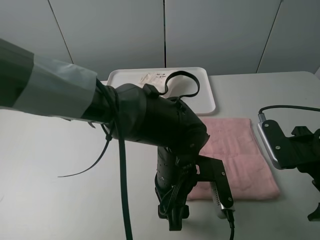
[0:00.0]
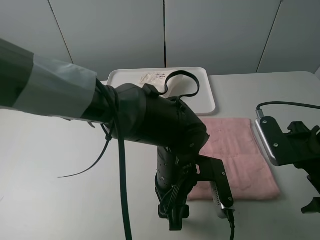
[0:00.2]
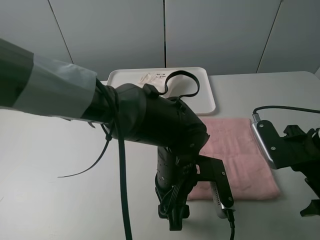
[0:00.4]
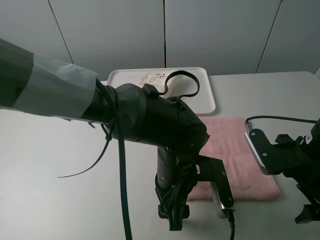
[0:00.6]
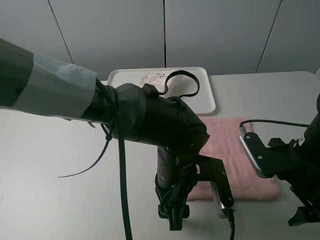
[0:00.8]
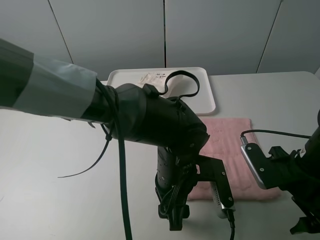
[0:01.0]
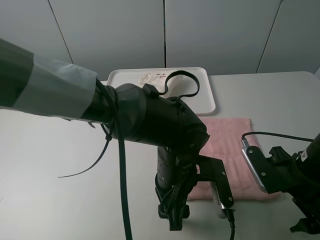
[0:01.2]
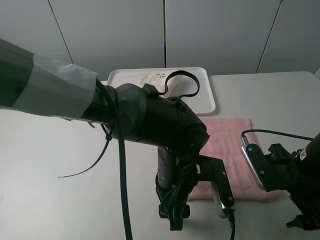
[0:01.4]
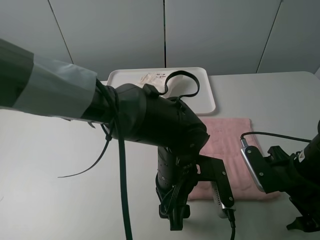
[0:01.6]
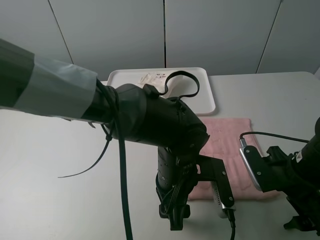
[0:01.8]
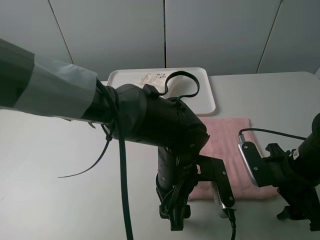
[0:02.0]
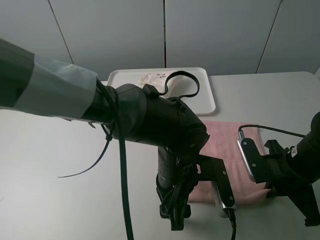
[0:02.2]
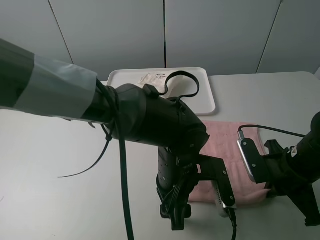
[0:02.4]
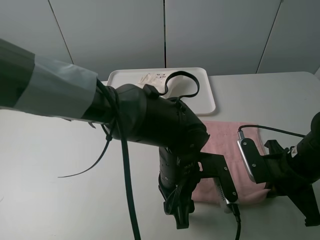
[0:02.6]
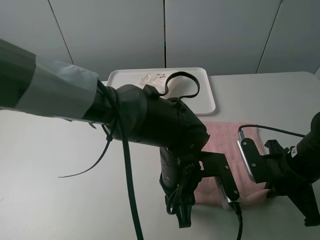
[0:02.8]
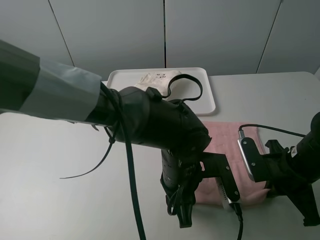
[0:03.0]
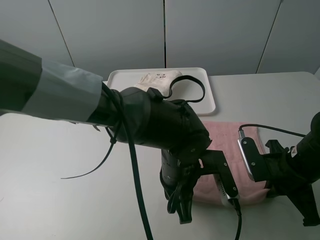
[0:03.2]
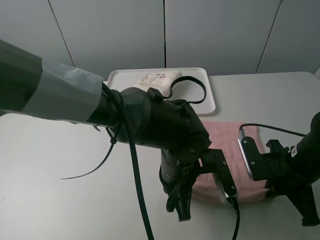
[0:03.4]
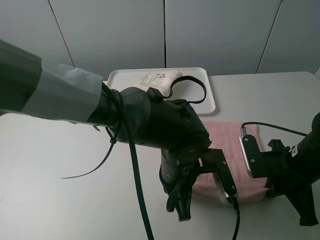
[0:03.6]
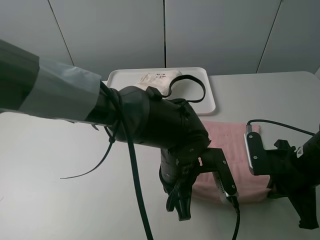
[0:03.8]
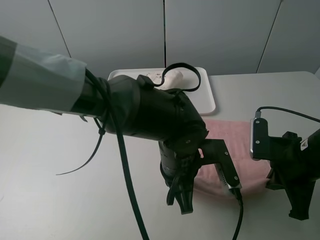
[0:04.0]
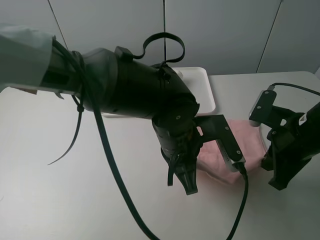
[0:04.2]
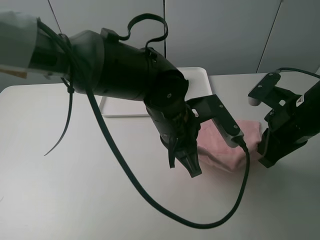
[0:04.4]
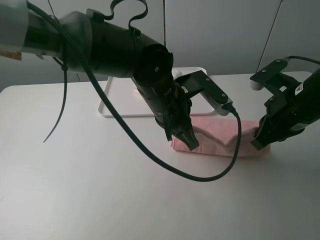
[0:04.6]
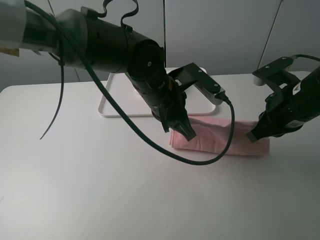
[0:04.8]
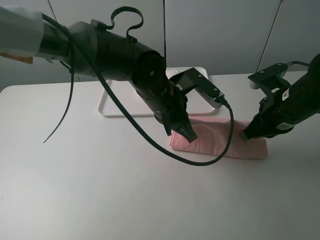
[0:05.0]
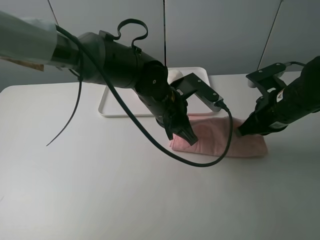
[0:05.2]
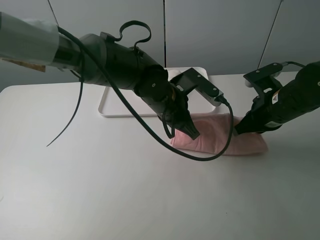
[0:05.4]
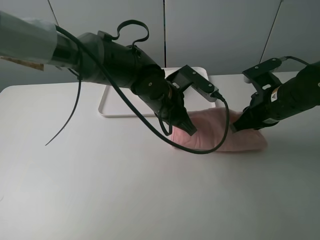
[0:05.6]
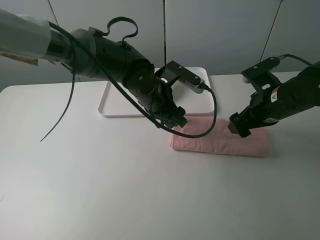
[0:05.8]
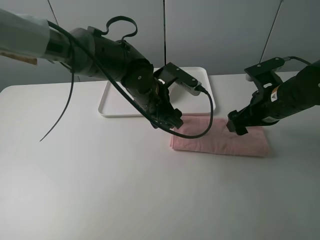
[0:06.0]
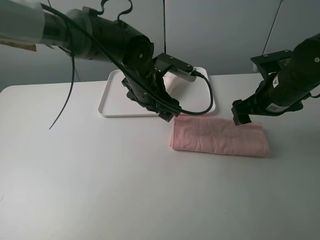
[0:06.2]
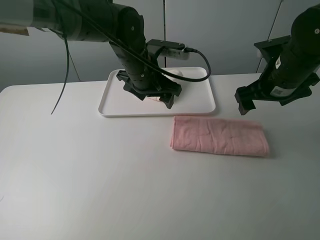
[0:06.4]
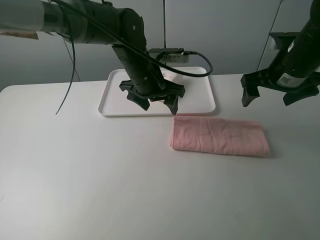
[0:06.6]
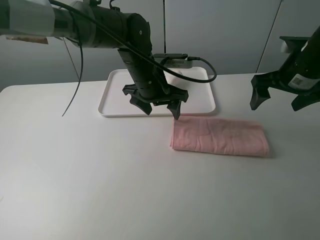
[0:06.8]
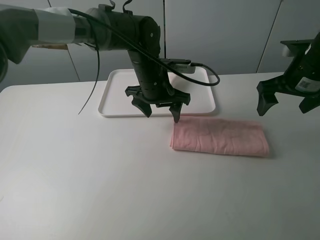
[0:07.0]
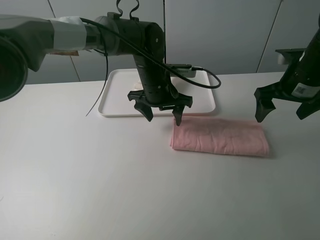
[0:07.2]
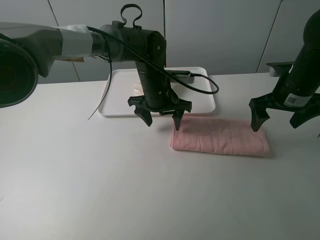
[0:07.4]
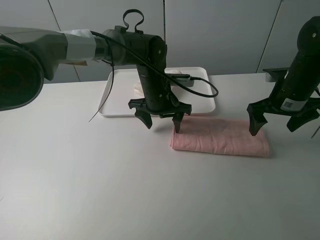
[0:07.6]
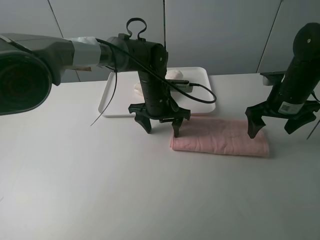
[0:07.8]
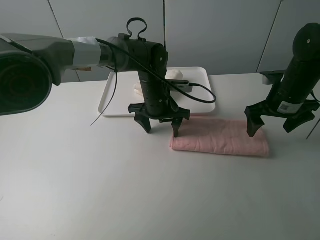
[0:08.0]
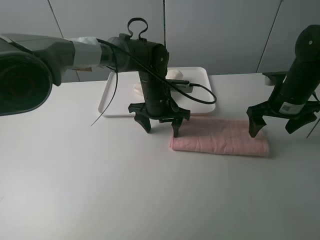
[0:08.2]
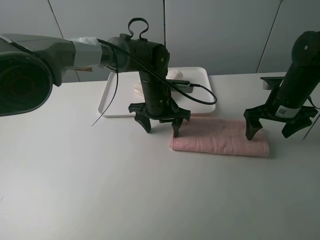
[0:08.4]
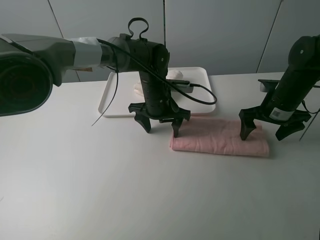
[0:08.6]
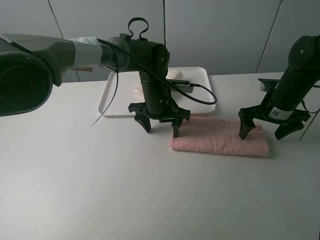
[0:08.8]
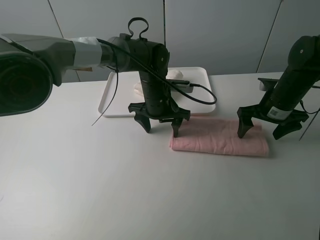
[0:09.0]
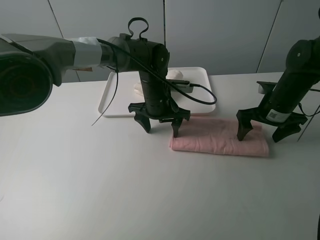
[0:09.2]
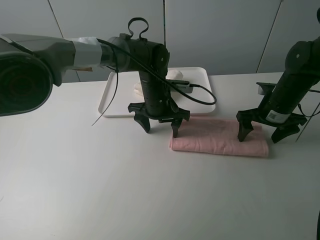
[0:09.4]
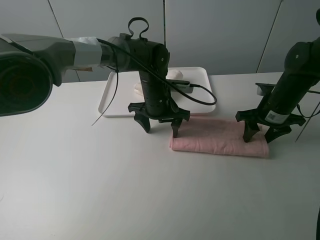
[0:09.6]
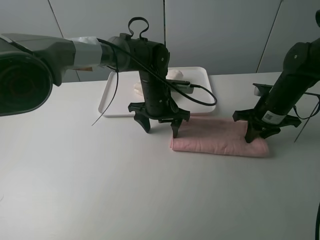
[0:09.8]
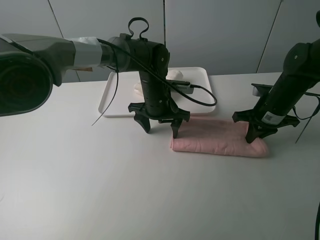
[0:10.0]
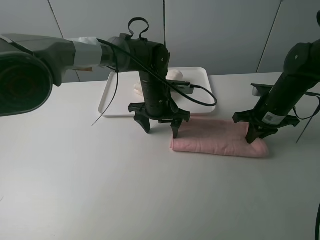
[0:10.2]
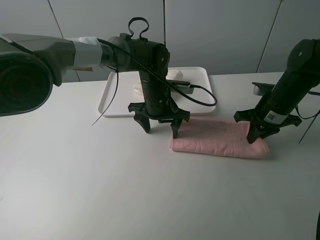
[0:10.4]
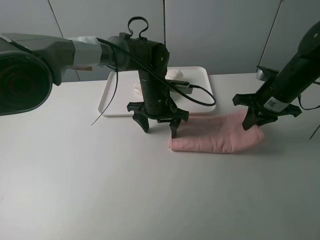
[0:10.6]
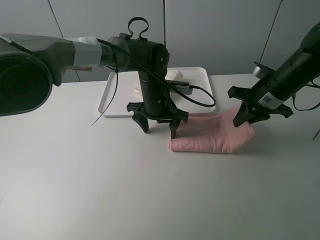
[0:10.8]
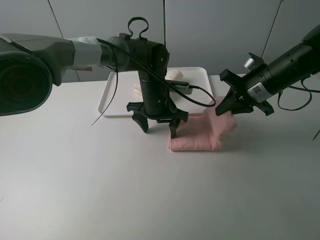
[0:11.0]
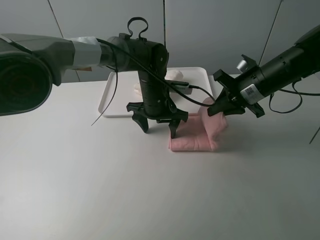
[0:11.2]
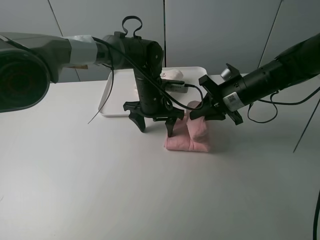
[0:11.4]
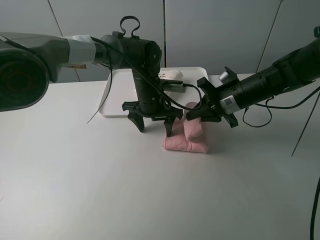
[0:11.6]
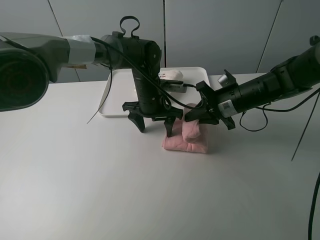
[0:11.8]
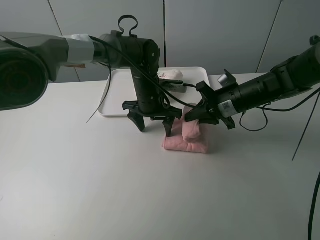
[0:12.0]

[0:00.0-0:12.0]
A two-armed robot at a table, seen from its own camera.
Task of the whole recording: fold one of the towels by two grippers and place it on the tray,then fold another towel by two grippers and place it on the folded towel.
Step, 0:03.4 to 0:06.0: Fold the pink towel upwards with the left gripper.
Step, 0:06.2 to 0:08.0: Press the pink towel with the left gripper.
Step, 0:08.2 to 0:10.0: Grasp the pink towel with the right gripper.
0:00.0 to 0:01.6: The right gripper goes roughly 5 cm downward.
0:01.6 to 0:03.0: The left gripper closes up. Meanwhile the right gripper closes.
0:03.0 to 0:04.4: The left gripper shifts about 10 cm upward and forward, and closes up, while the right gripper heads upward, covering about 10 cm.
0:04.4 to 0:06.0: The right gripper moves forward, approximately 5 cm, and opens up, while the left gripper shifts approximately 10 cm forward, and opens.
0:06.0 to 0:07.6: The left gripper shifts by about 5 cm. The right gripper moves some 5 cm.
0:07.6 to 0:09.0: The grippers move only a little.
0:09.0 to 0:10.4: The right gripper closes up.
0:10.4 to 0:12.0: The right gripper is displaced to the left by approximately 10 cm.

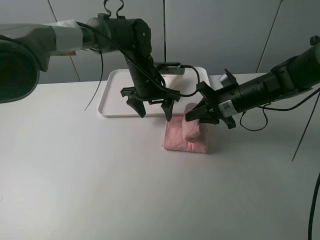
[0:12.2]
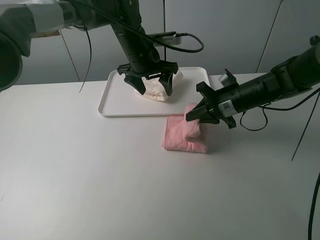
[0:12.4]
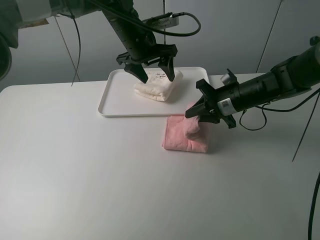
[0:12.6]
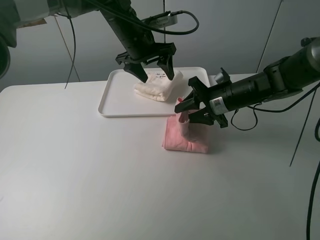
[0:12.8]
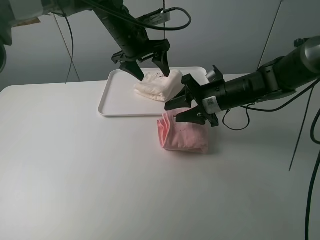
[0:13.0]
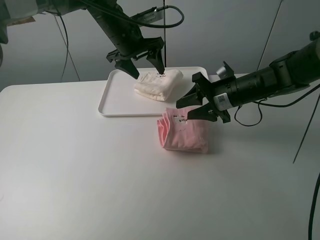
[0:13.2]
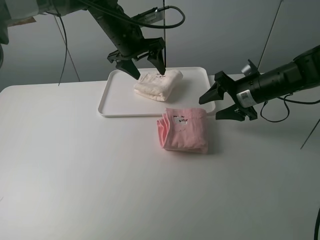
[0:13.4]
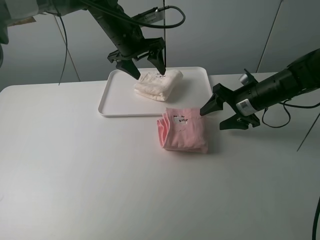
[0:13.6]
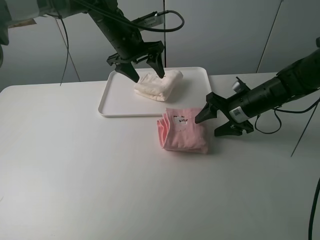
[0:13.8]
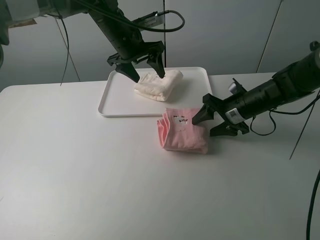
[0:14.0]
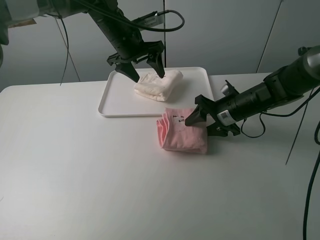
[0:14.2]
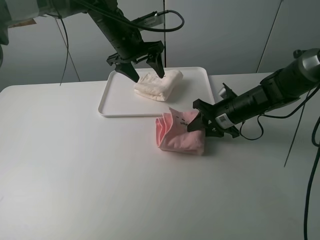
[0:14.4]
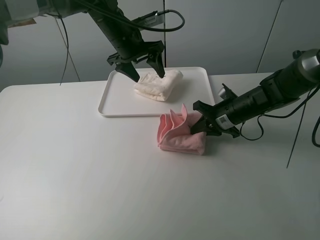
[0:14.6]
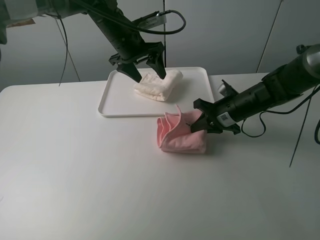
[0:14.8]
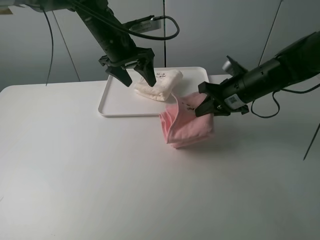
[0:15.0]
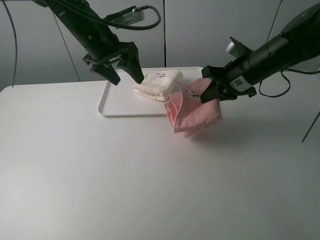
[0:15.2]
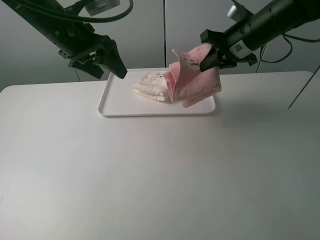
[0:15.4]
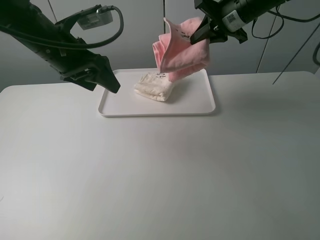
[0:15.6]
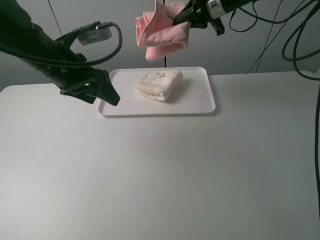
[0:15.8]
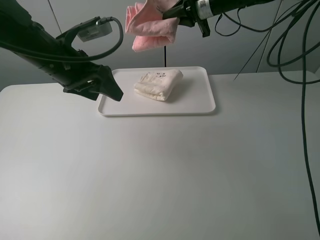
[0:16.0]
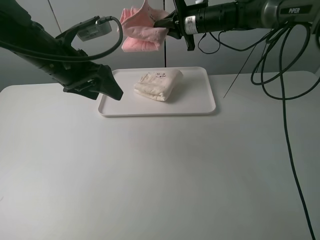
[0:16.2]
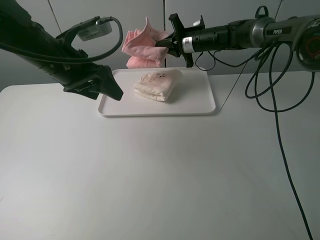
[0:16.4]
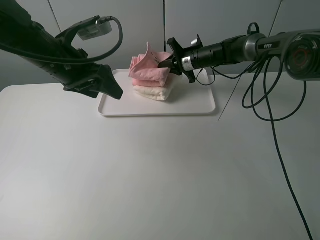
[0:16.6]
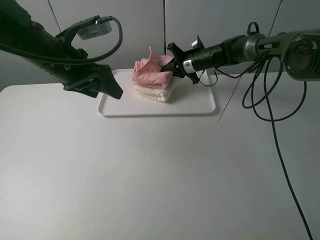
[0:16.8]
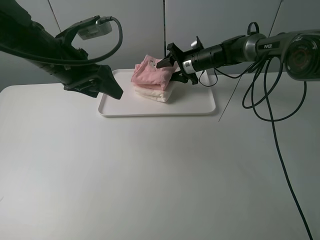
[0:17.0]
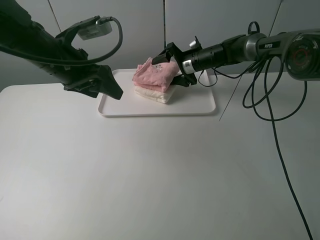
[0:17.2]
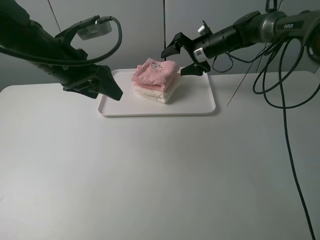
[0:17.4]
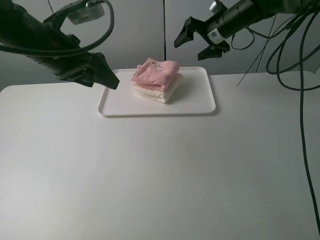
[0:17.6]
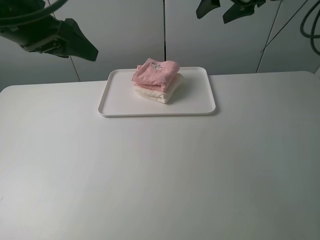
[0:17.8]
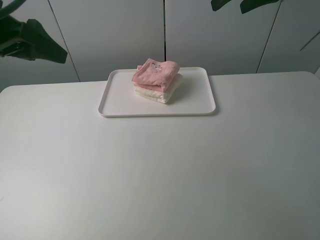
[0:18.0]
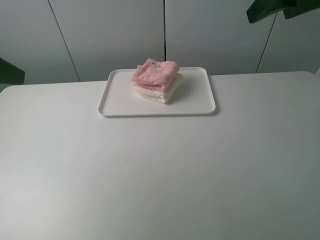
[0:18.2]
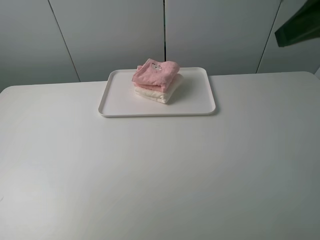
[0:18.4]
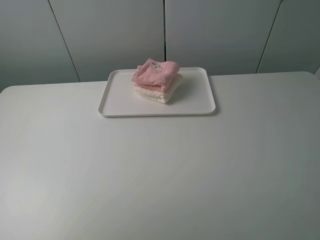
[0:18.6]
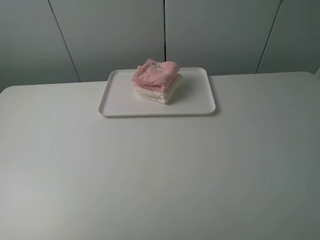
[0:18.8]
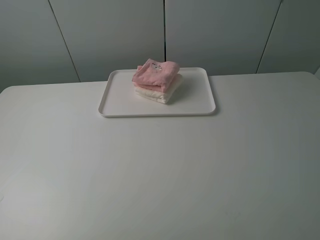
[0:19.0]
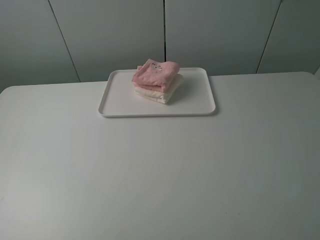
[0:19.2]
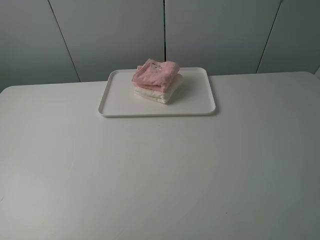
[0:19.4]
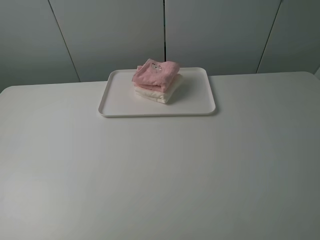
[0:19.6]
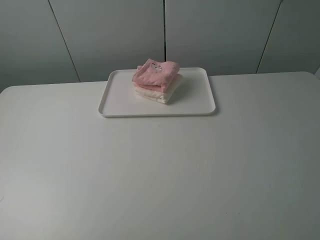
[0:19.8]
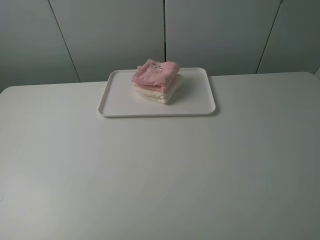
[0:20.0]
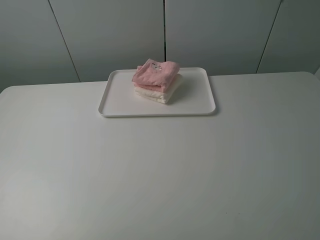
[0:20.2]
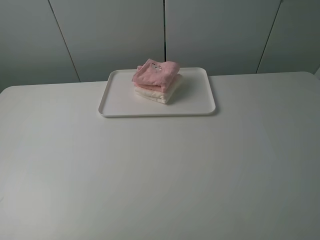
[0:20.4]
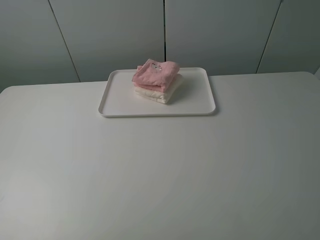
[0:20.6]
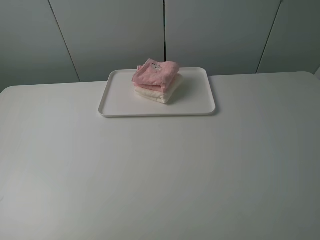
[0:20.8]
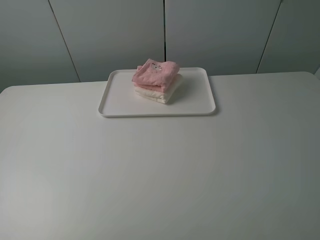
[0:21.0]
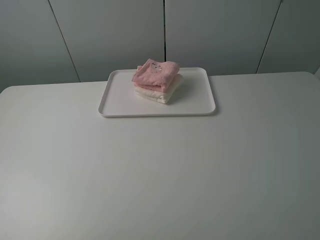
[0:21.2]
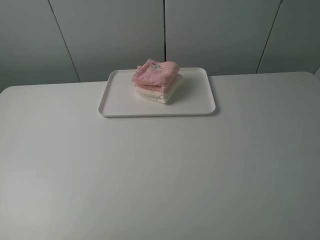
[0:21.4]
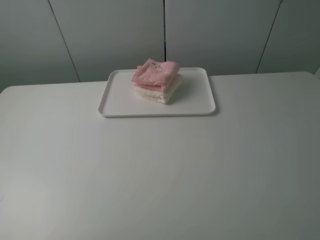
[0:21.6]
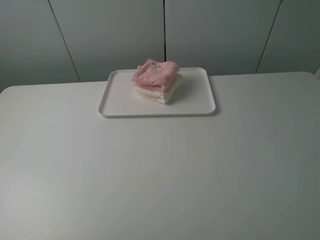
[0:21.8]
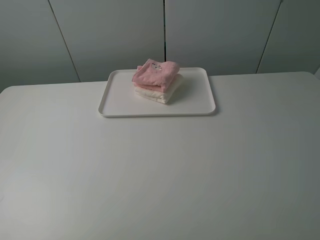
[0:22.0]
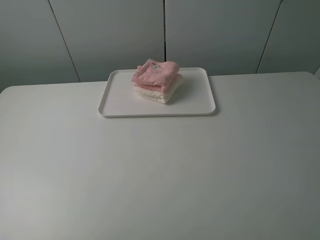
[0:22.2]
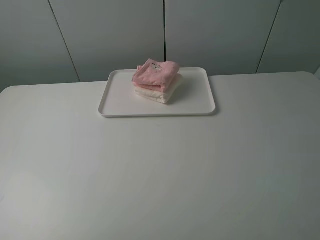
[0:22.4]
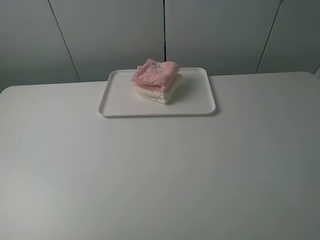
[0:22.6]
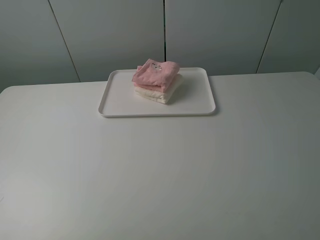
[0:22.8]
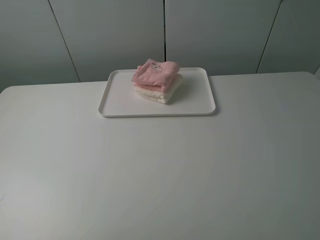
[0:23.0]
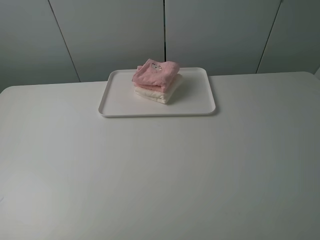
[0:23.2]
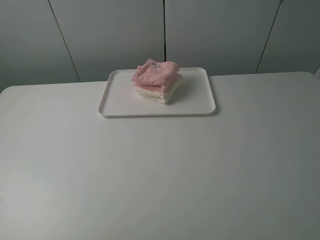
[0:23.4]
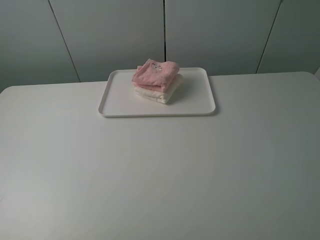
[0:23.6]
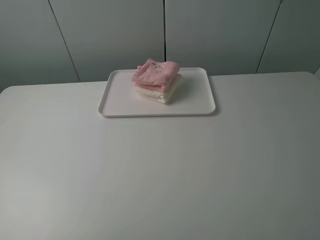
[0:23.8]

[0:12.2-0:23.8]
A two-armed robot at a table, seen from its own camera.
Task of the whole recording: fold one of the towels by two grippers and place it on the tray,then fold another towel by two grippers and place it on the folded towel.
Step, 0:13.6 to 0:14.4: Grasp the pink towel with the right gripper.
Step, 0:14.6 to 0:17.2: Place the pink towel on the white towel with the right gripper.
0:12.2 to 0:13.6: The right gripper opens; the left gripper shifts about 5 cm upward.
0:13.6 to 0:15.0: The right gripper shifts by approximately 5 cm, and closes up.
0:15.0 to 0:16.6: The right gripper moves forward, approximately 20 cm, while the left gripper is displaced backward and to the left by some 10 cm.
0:16.6 to 0:18.0: The left gripper moves upward, backward and to the left, some 15 cm. The right gripper shifts about 30 cm upward and backward, and opens its fingers.
0:18.0 to 0:19.4: Both grippers move backward, approximately 30 cm.
0:21.0 to 0:23.8: Neither gripper changes place.
